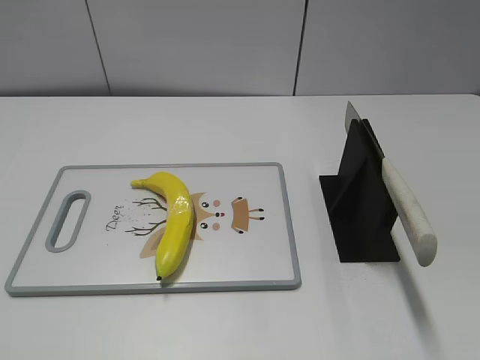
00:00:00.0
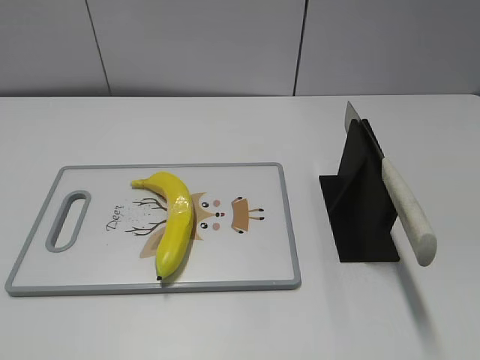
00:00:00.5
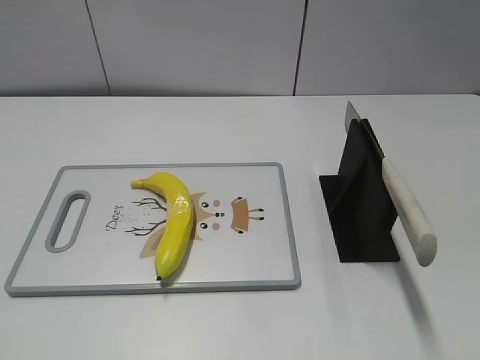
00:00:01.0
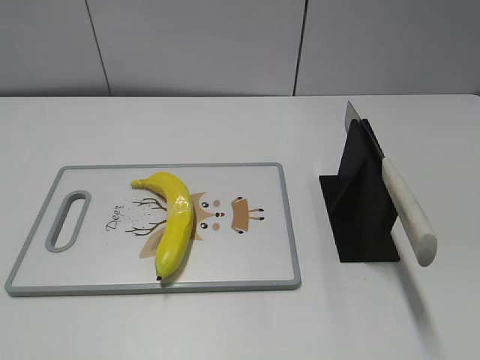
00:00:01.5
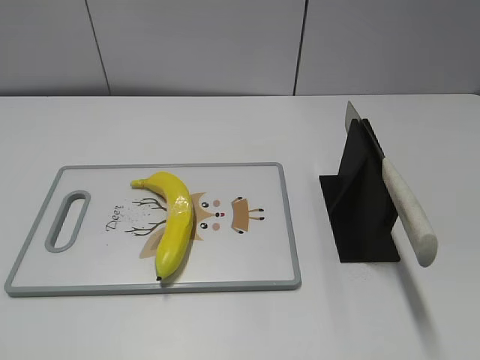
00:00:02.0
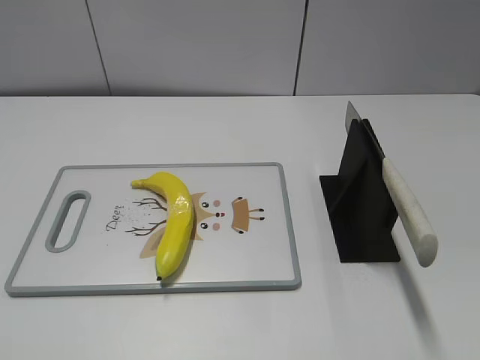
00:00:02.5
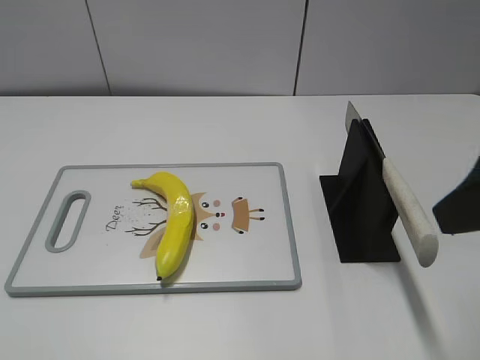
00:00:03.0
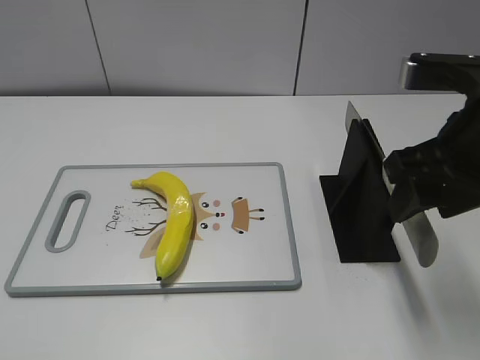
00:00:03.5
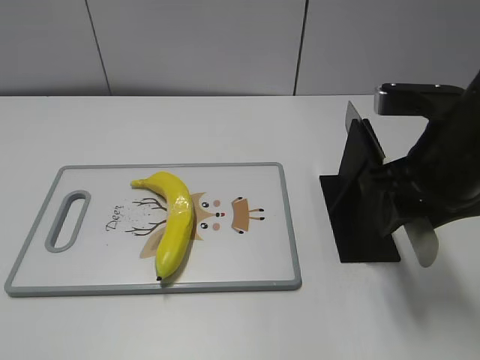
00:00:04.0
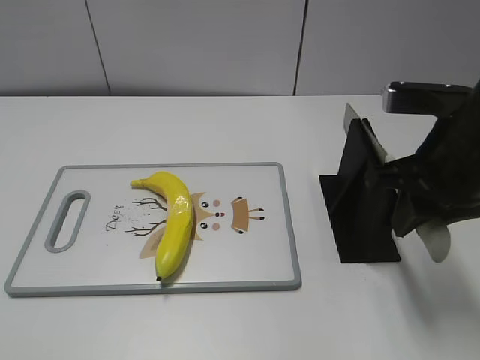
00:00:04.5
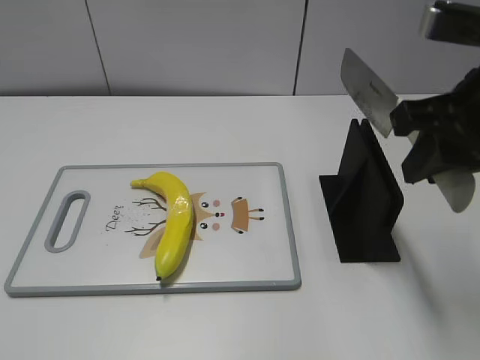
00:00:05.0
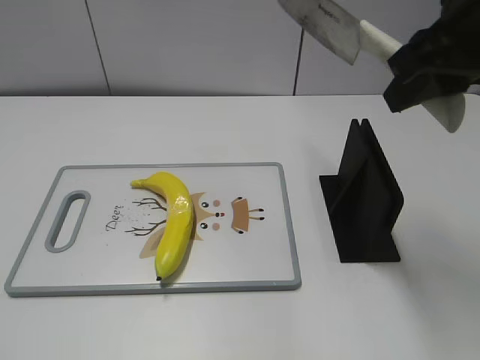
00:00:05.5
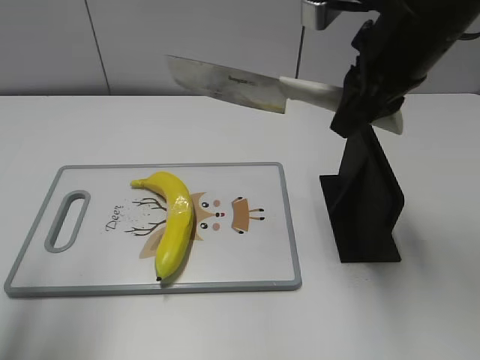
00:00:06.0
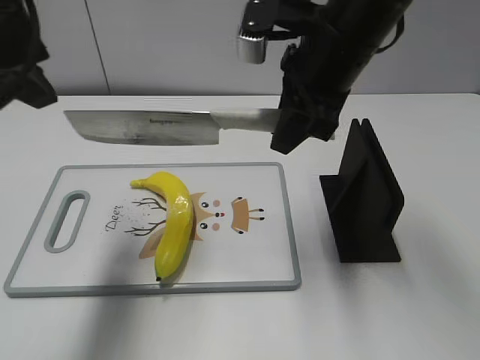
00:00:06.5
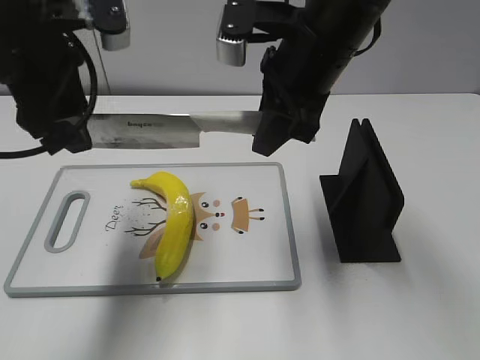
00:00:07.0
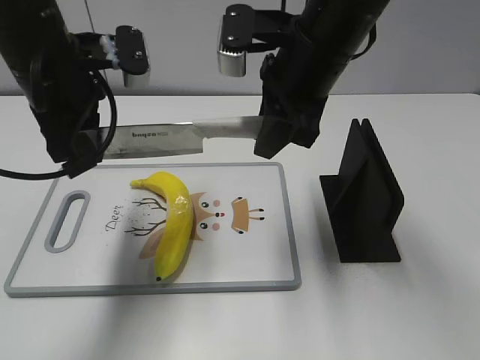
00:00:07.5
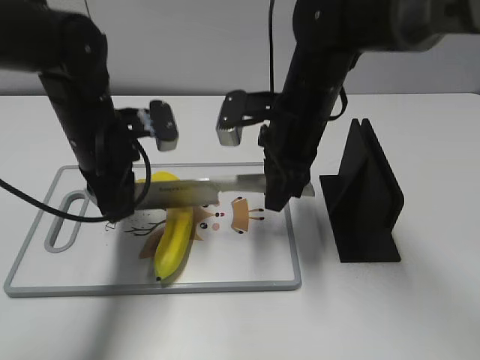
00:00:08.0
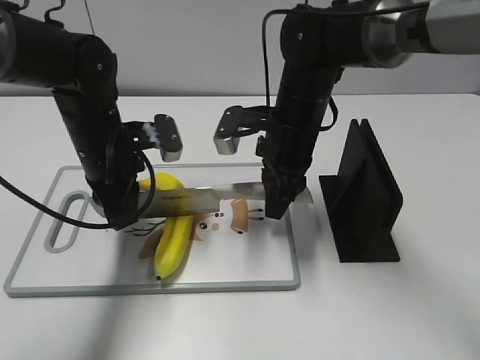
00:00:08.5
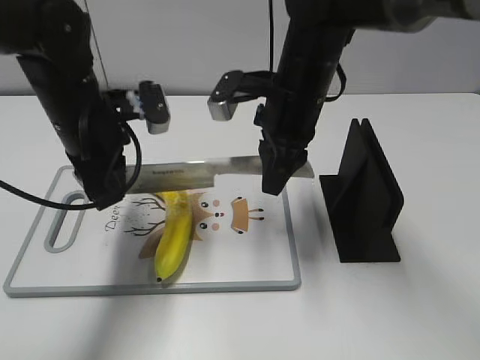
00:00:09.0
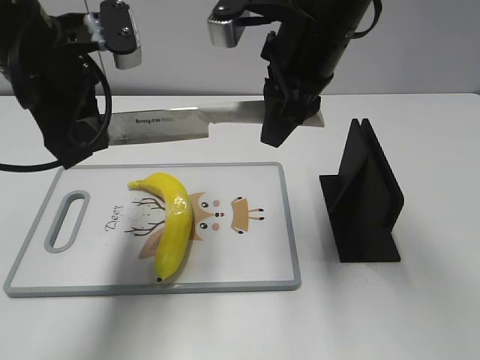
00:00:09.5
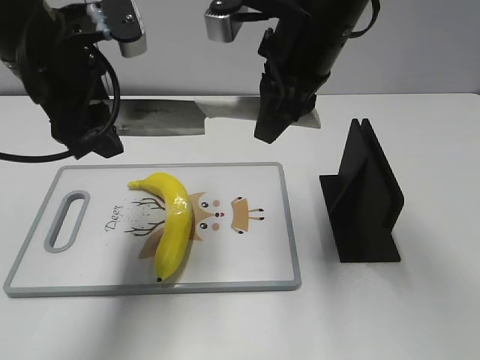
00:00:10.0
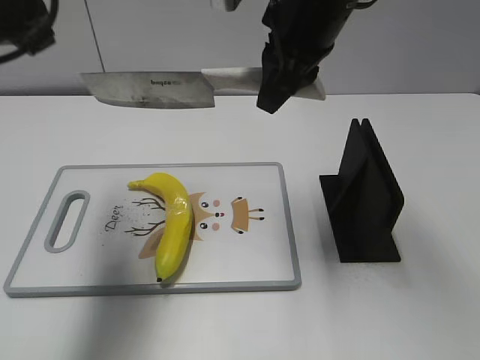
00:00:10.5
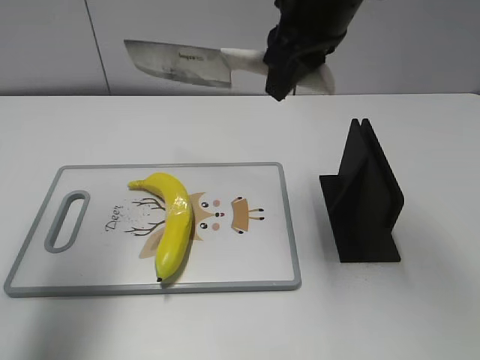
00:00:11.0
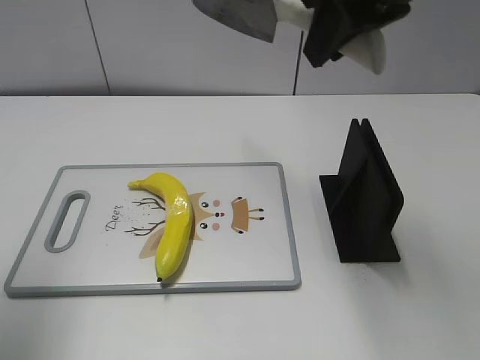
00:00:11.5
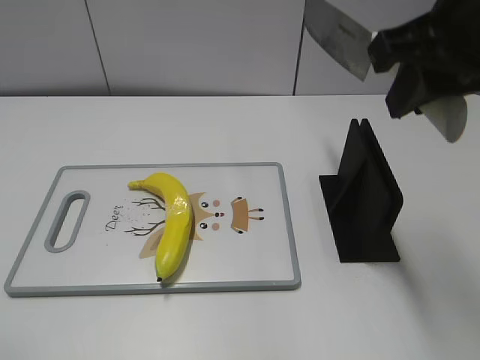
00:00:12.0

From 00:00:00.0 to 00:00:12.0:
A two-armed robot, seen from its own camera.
Task of the whole recording: cut plastic banana.
Step, from 00:00:00.0 to 00:00:05.0: Grab the knife handle with your right hand.
Step, from 00:00:05.5 to 00:00:09.0: Lift the knife with your right hand.
Step, from 00:00:09.5 to 00:00:10.0: Cut the banana with your right hand.
From 00:00:02.0 to 00:00:04.0: The right gripper shifts about 25 cm forward and to the left.
From 00:00:04.0 to 00:00:06.0: The left gripper travels forward and upward by about 20 cm, while the right gripper moves upward and forward, about 10 cm, and closes its fingers.
From 00:00:06.0 to 00:00:08.0: The right gripper moves downward and to the left, about 15 cm. Meanwhile the left gripper heads downward, forward and to the right, covering about 30 cm, and closes.
From 00:00:08.0 to 00:00:10.0: Both grippers travel together upward, approximately 10 cm. The left gripper opens.
From 00:00:10.0 to 00:00:12.0: The right gripper travels backward, to the right and upward by some 15 cm. The left gripper heads backward and to the left, covering roughly 25 cm.

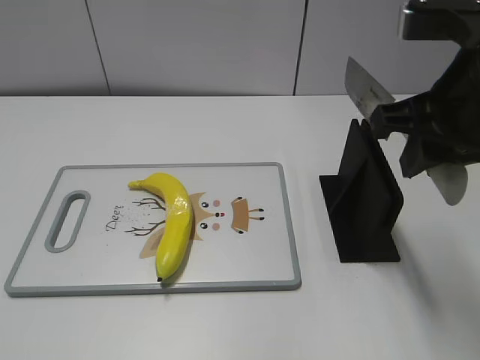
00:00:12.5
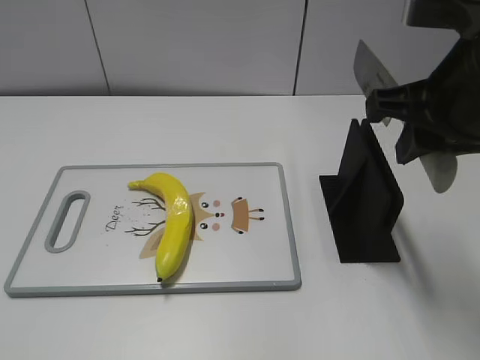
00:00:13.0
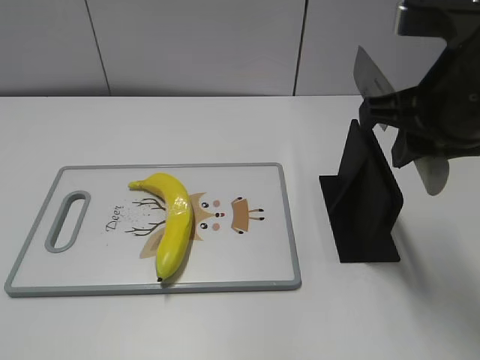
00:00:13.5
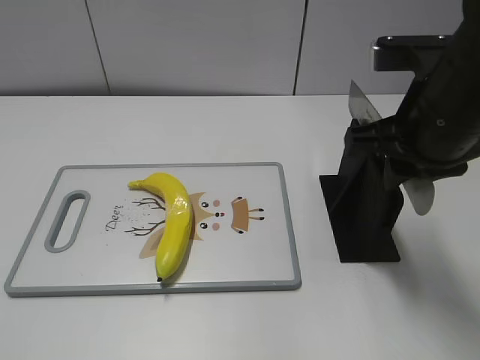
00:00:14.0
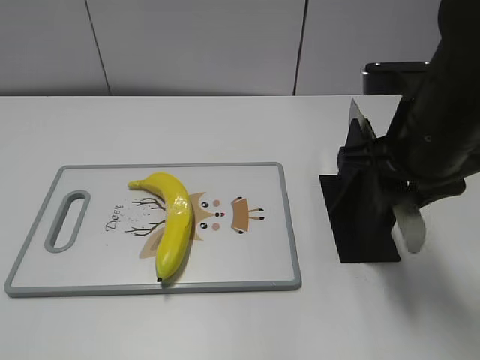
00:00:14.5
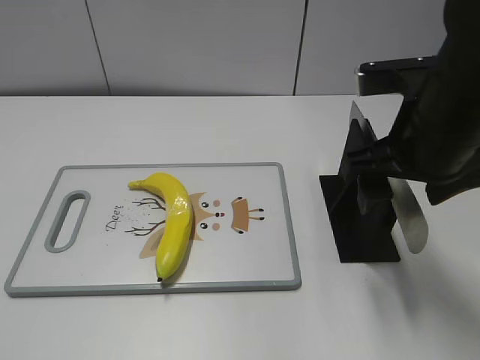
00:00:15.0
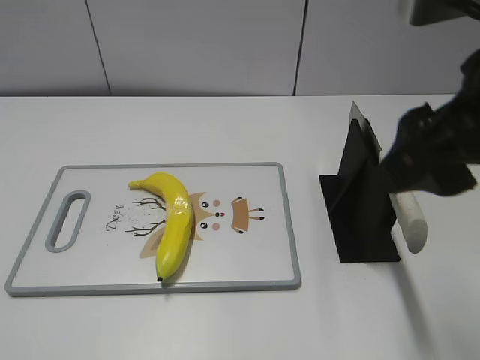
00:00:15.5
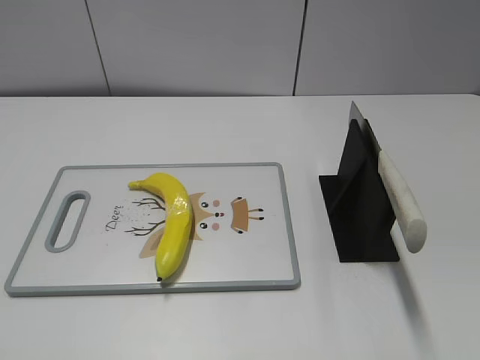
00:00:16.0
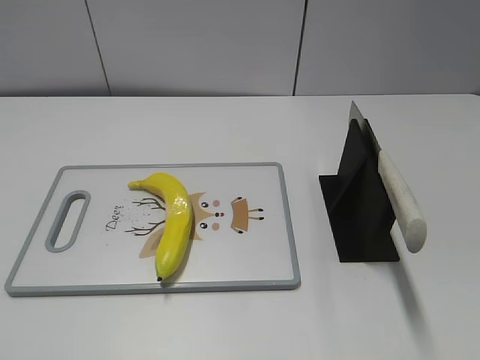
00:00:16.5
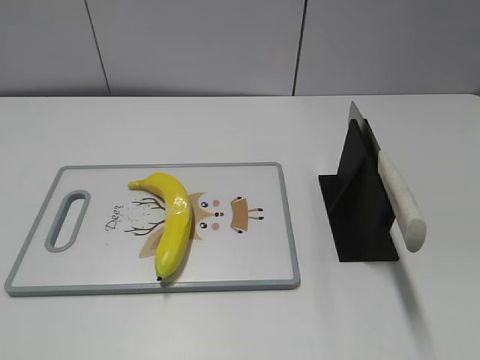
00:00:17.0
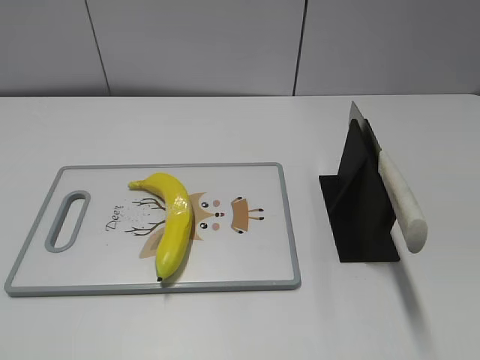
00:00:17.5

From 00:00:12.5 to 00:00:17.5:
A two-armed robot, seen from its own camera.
Task of the whole recording: cut plastic banana.
Step, from 00:00:12.5 to 00:00:17.5: Place the knife on the storage rack with your right hand.
From 00:00:12.5 to 00:00:15.0: The right gripper shifts some 5 cm downward, and opens its fingers.
From 00:00:15.0 to 00:00:17.5: The right gripper is displaced backward and to the right by about 30 cm.
